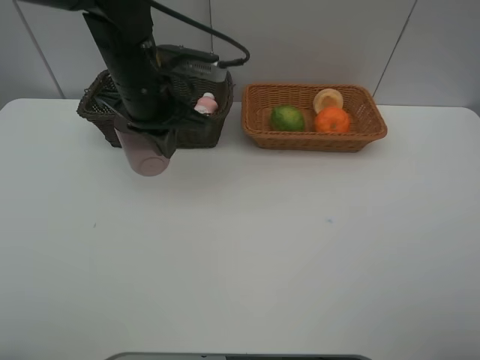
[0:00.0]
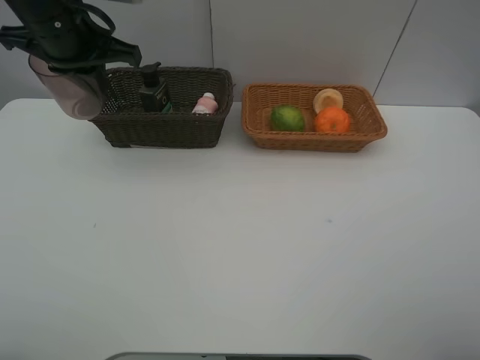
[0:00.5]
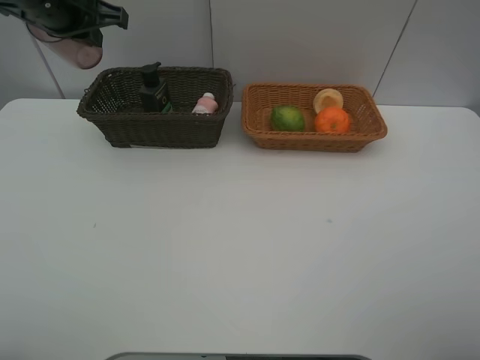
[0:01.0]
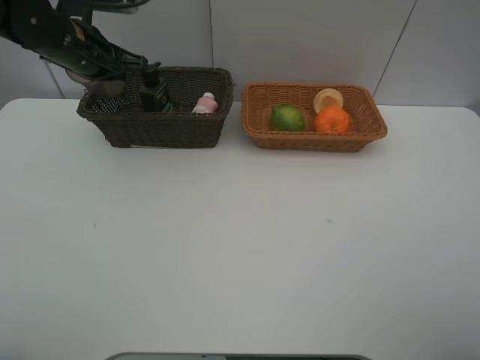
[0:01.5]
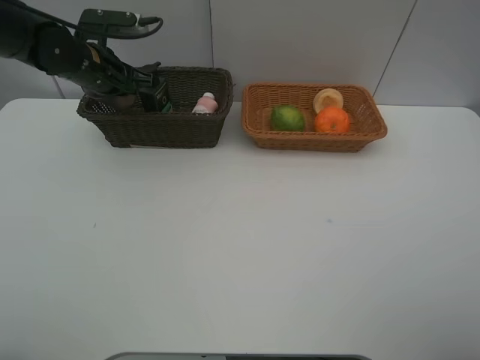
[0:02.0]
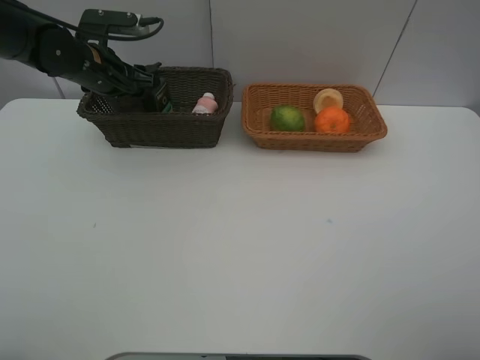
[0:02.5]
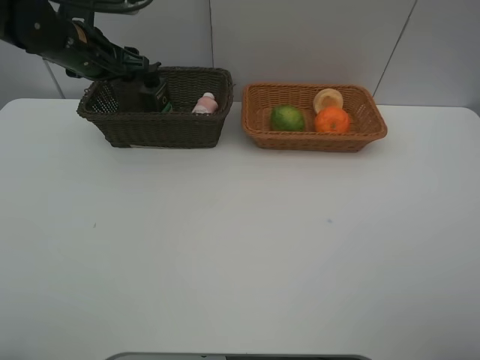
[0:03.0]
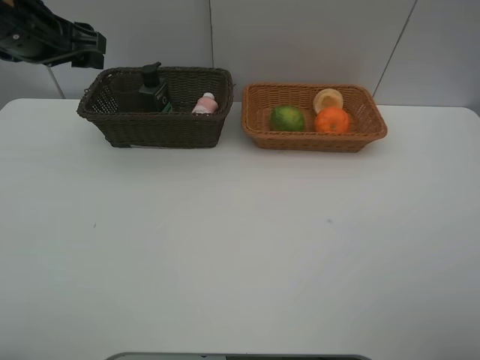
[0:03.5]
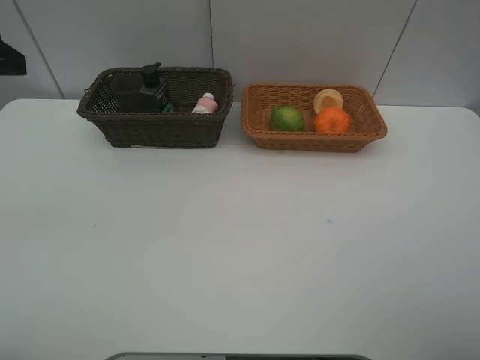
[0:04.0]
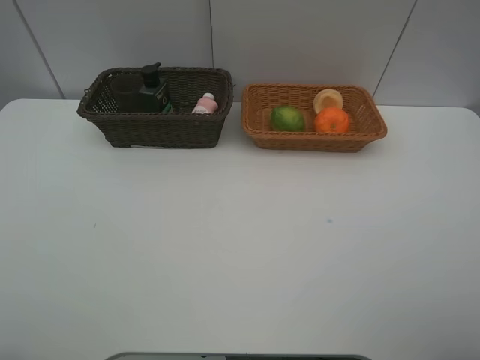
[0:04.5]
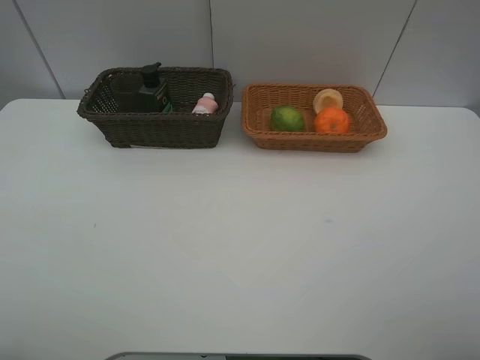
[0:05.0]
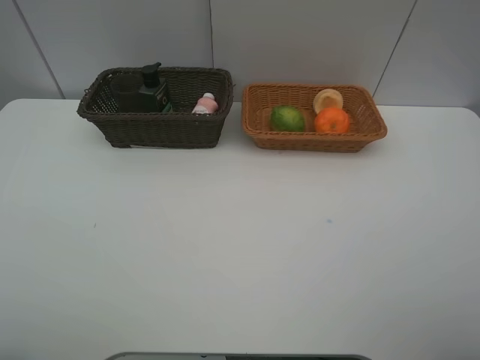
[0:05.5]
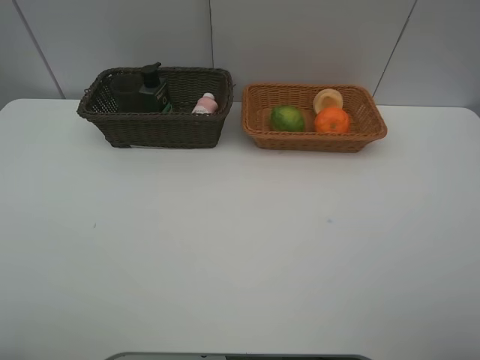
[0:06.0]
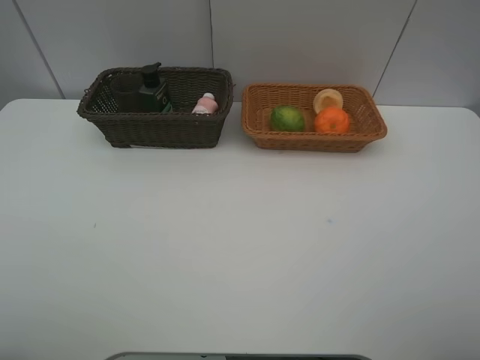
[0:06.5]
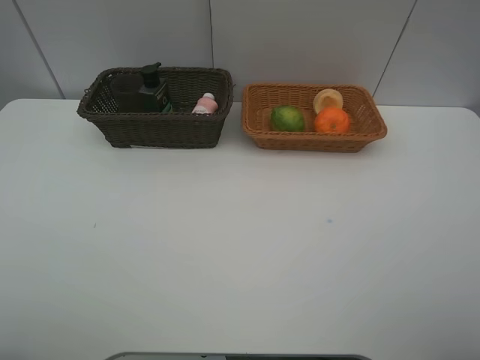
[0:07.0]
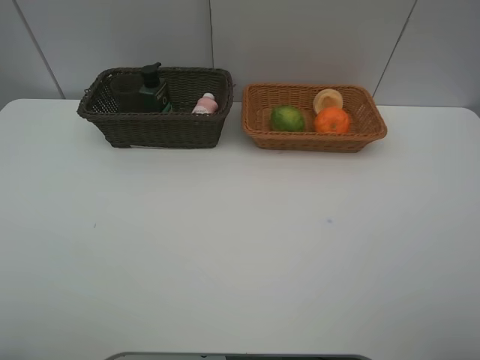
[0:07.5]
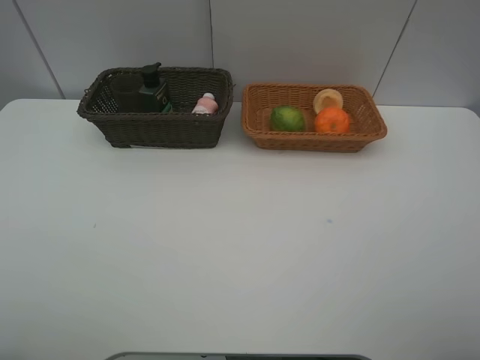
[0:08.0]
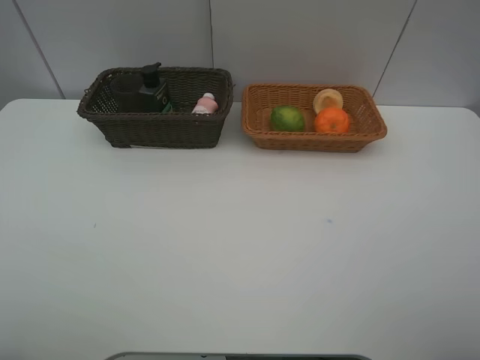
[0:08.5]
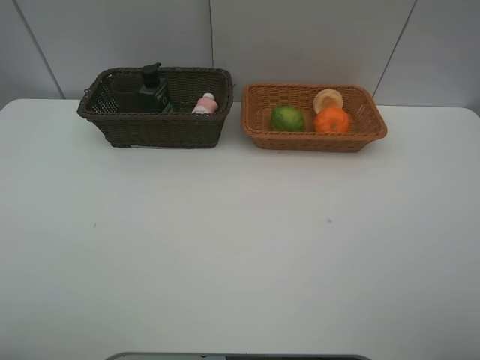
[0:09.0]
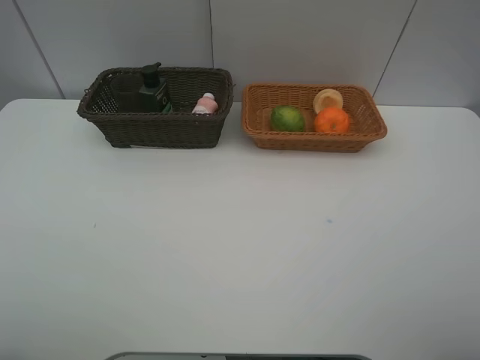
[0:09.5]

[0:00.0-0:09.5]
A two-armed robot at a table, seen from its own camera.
Task of the whole recording: place multiple objects separately in different baskets.
Step, 0.0 to 2.5 s: Place the brown cup in the dark basket with left gripper.
0.0 to 2.0 s: The left gripper heads to the left and forward, covering roughly 15 cm.
2.0 to 4.0 s: The left gripper moves backward and upward, roughly 30 cm, and opens.
7.5 to 9.5 s: Neither gripper changes place.

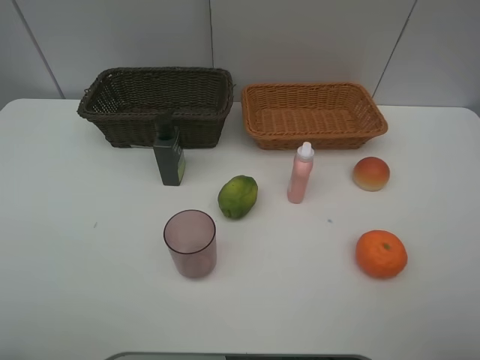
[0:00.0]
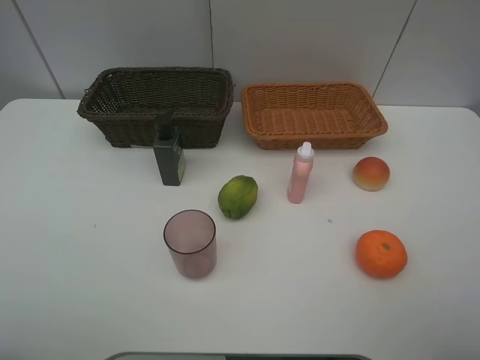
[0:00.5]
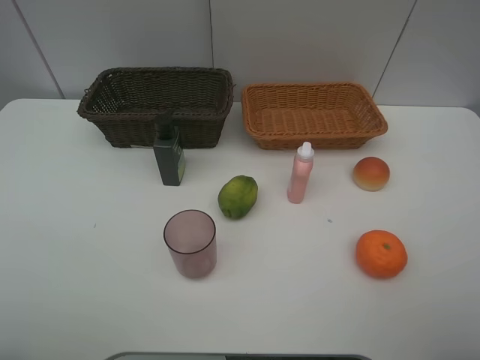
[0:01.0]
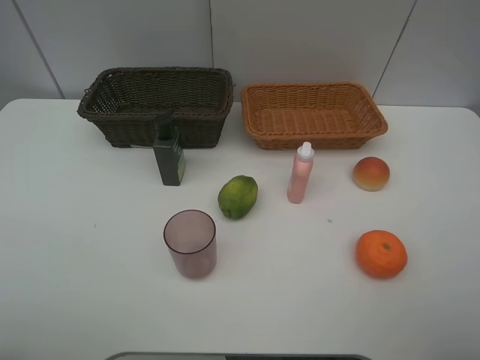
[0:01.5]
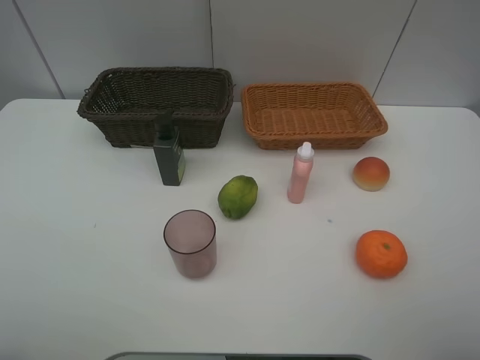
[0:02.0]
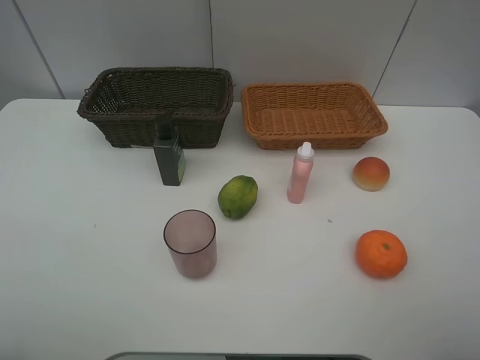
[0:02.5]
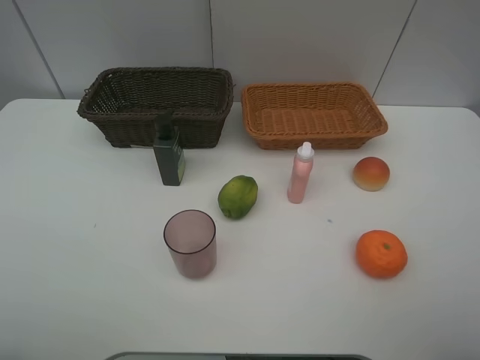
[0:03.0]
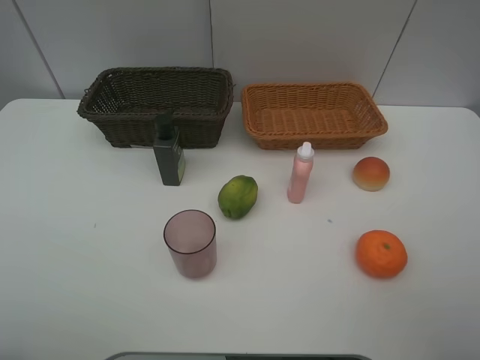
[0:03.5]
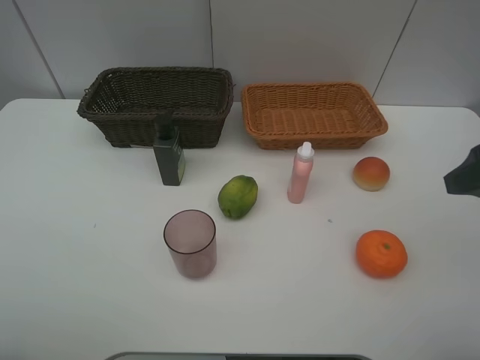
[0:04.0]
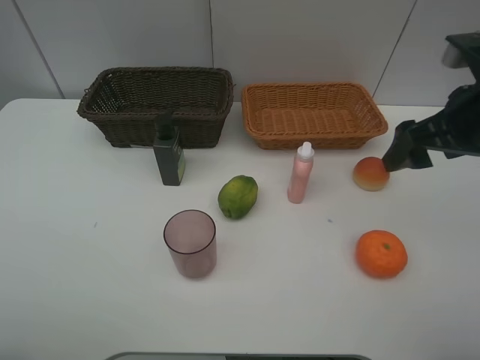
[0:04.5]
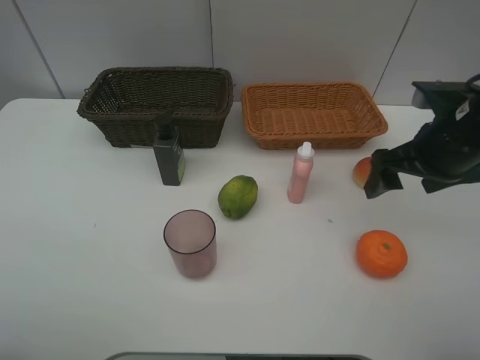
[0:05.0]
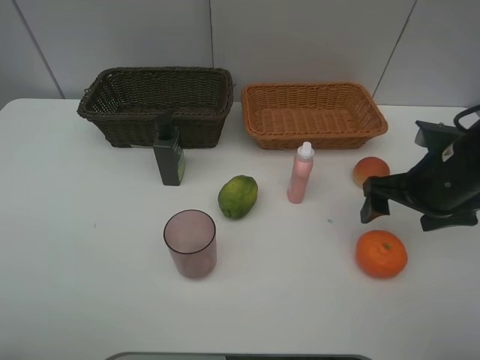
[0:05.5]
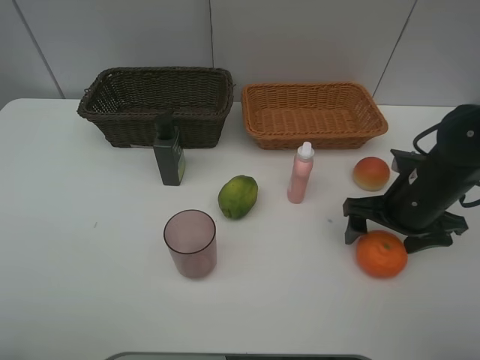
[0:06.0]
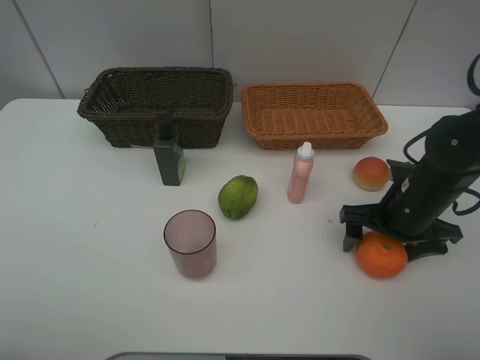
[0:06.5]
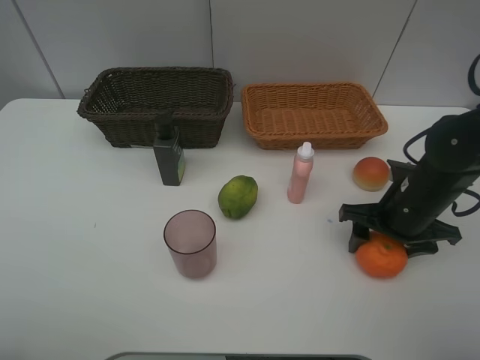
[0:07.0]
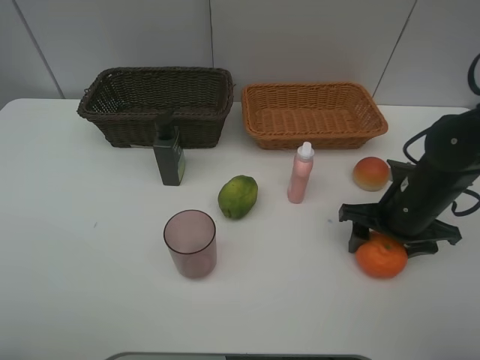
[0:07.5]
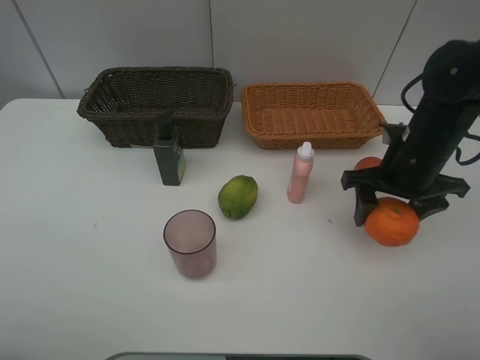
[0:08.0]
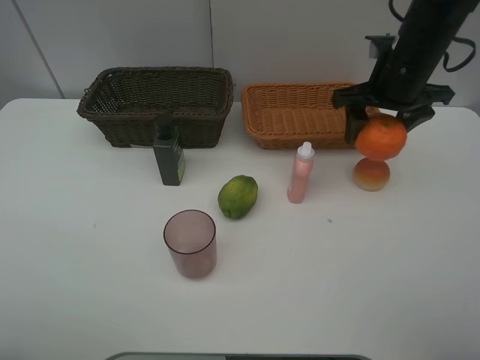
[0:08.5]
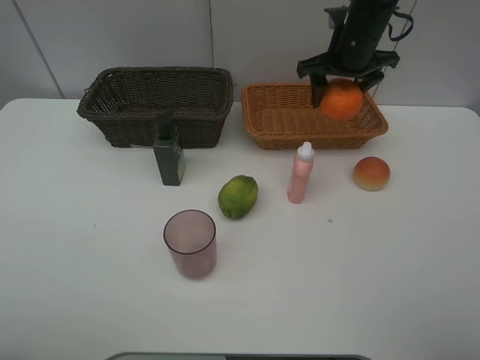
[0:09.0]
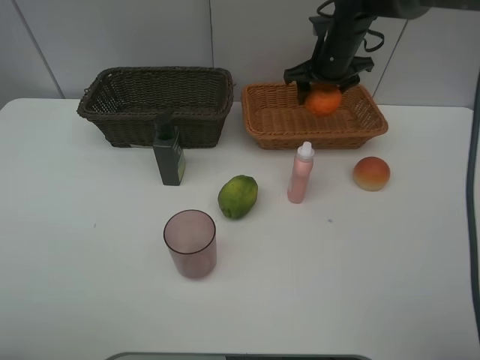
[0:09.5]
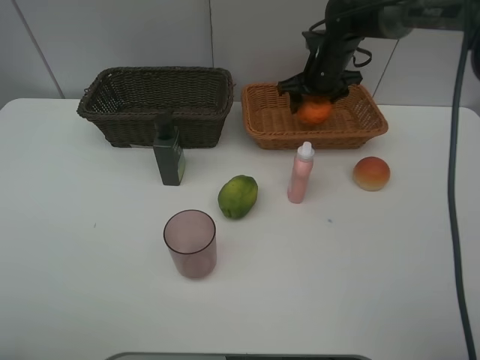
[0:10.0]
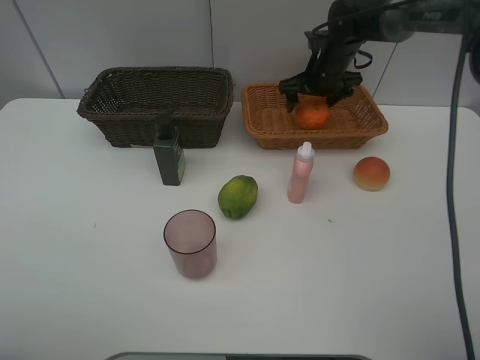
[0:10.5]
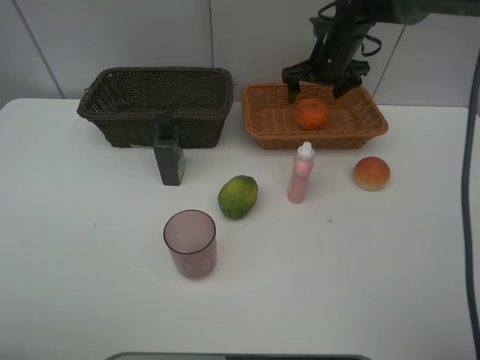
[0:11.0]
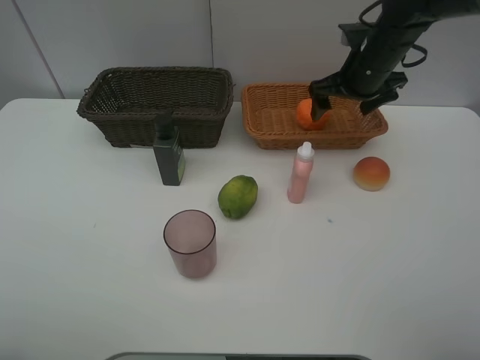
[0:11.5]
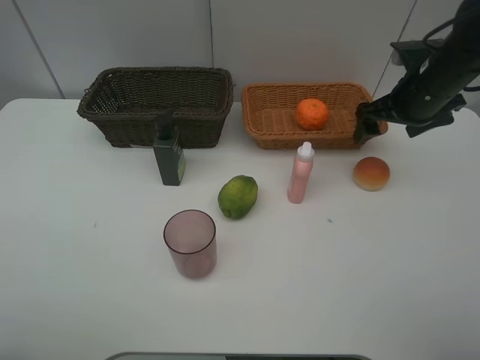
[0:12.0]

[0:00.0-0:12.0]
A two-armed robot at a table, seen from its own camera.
Task of the whole recording: place multiple objects separately in different baskets.
0.0 to 2.0 s: Both grippers stay about where they are.
2.0 to 4.0 s: The right gripper heads forward, covering about 15 cm.
4.0 to 6.0 s: The right gripper moves downward and forward, approximately 15 cm.
6.0 to 8.0 s: The right gripper shifts by approximately 5 cm, and closes up.
8.0 to 10.0 s: The right gripper is displaced forward by approximately 20 cm.
10.0 to 12.0 s: The right gripper goes about 20 cm backward and to the right, and opens its fingers.

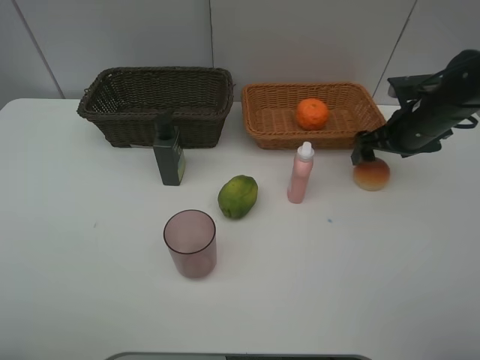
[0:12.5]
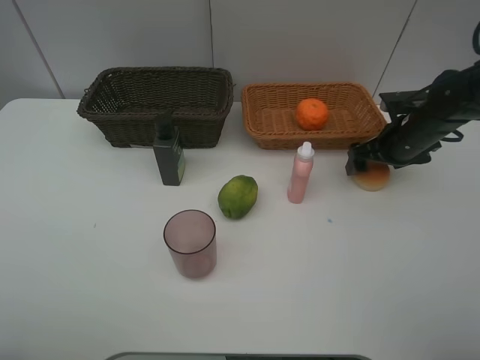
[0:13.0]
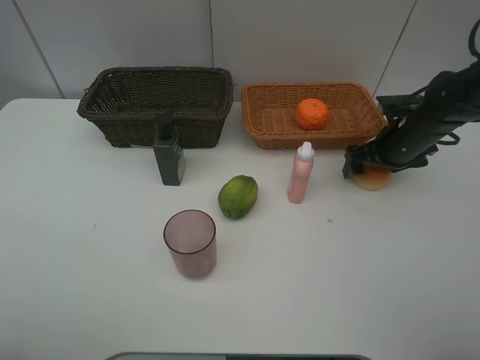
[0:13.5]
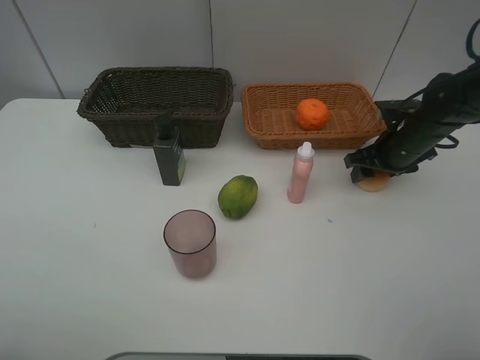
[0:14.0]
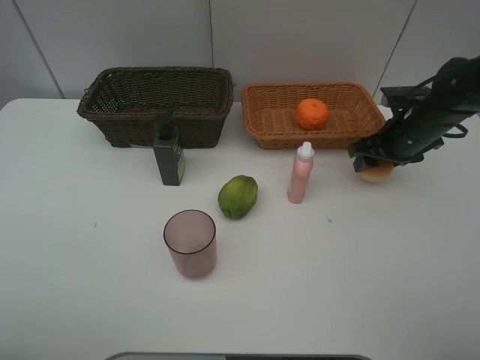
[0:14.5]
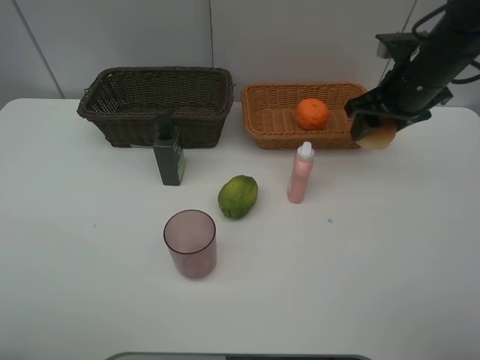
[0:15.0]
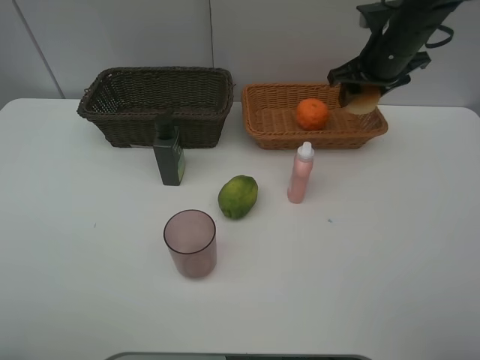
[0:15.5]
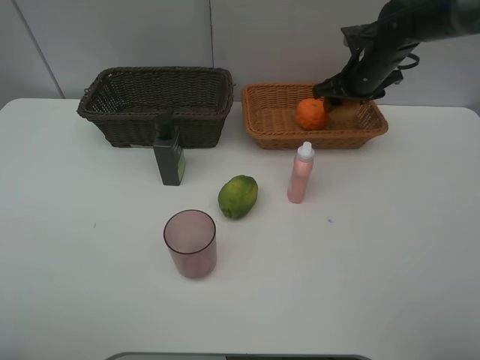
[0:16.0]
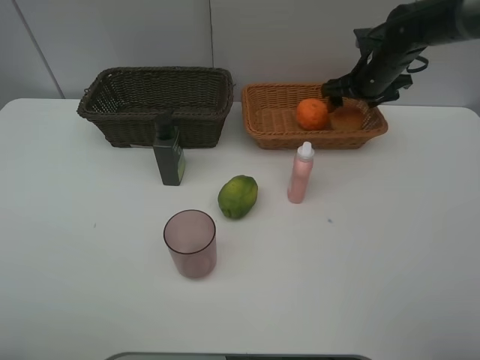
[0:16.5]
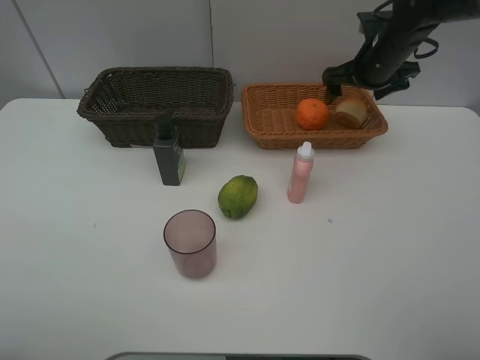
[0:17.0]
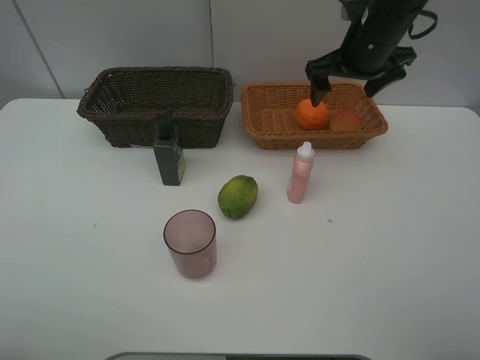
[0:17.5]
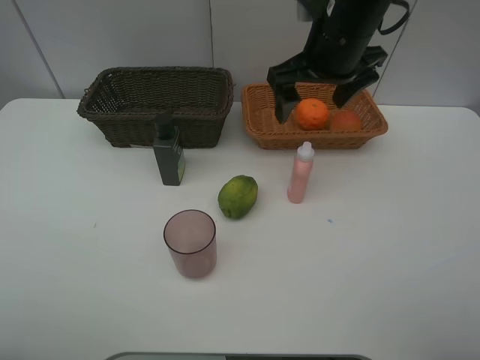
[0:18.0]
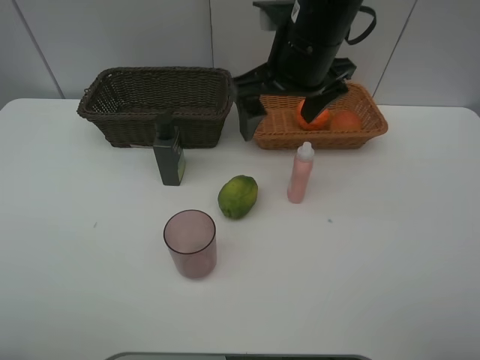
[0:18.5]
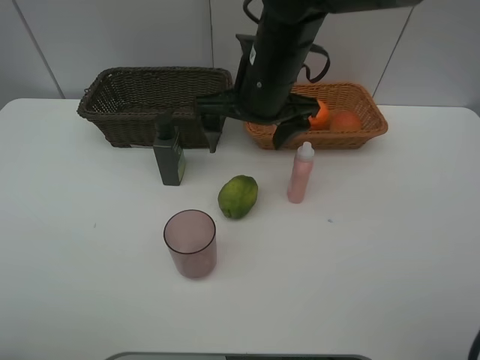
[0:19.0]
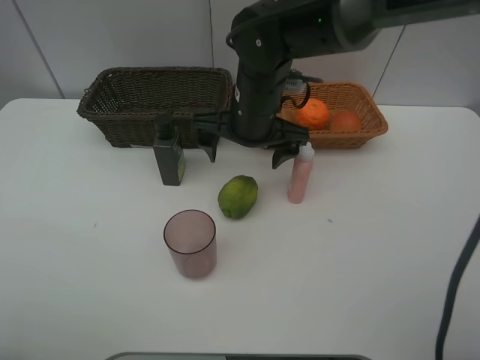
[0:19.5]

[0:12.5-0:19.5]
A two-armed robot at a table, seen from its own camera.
Task of the whole recording: place multiple objects separately in different baskets.
12.5 to 14.5 s: The right gripper closes.
14.5 to 16.0 s: The right gripper shifts about 10 cm forward.
16.0 to 17.5 s: The right gripper goes roughly 10 cm upward and backward, and opens its fingers.
17.5 to 19.5 s: The right gripper heads to the left, downward and backward, covering roughly 20 cm.
